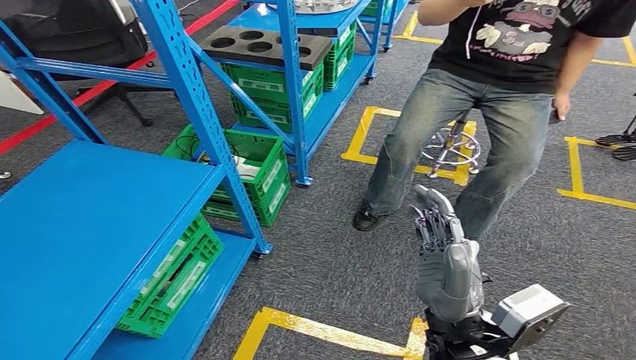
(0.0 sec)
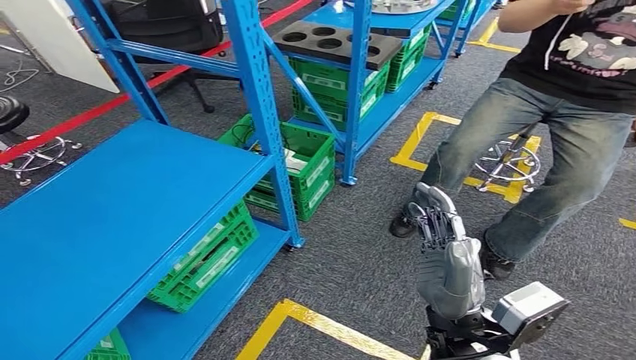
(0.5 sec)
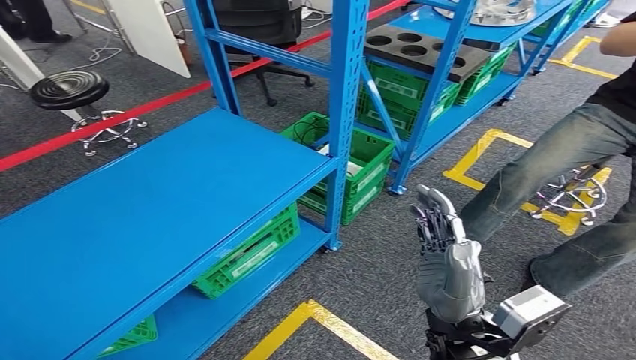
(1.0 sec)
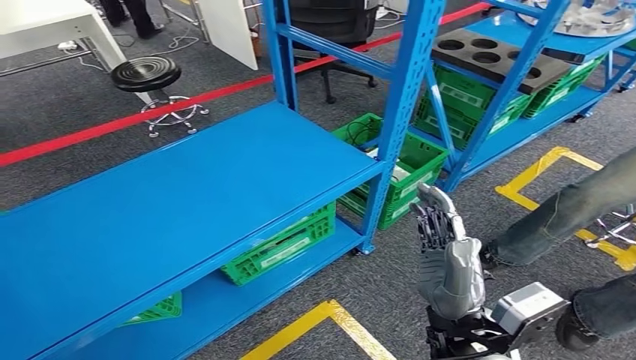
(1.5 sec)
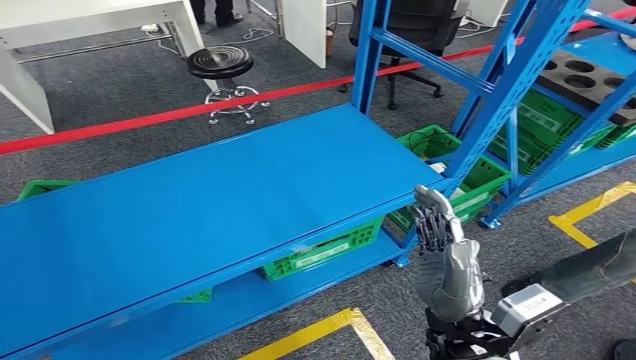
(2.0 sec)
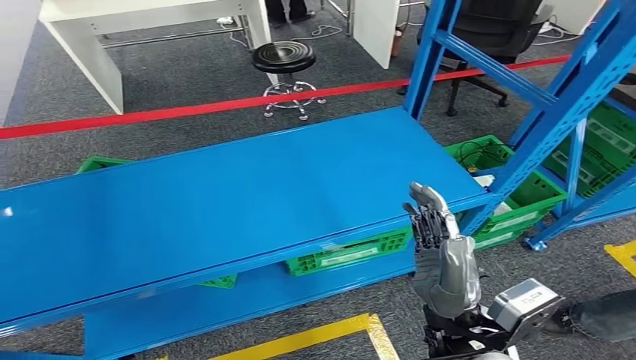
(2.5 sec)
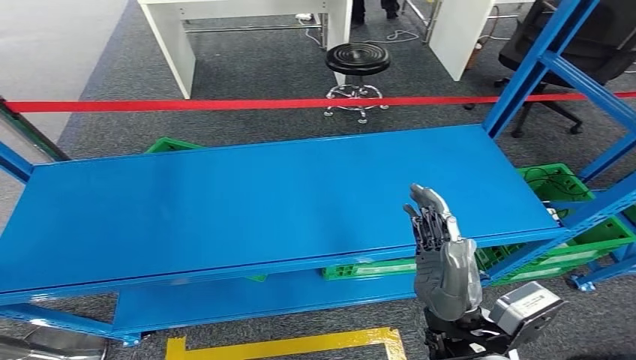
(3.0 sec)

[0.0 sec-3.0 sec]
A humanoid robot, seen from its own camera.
Step, 0.0 sec to 3.0 sec: Return to the initial position at the workbench.
